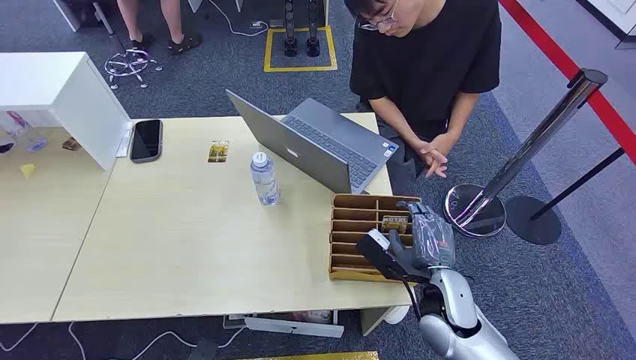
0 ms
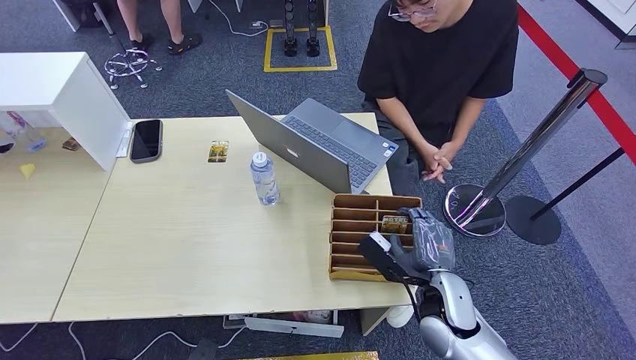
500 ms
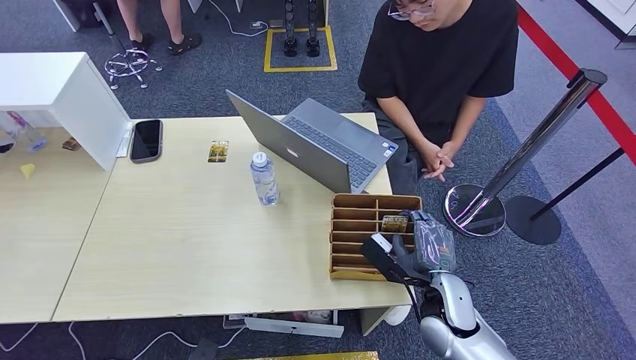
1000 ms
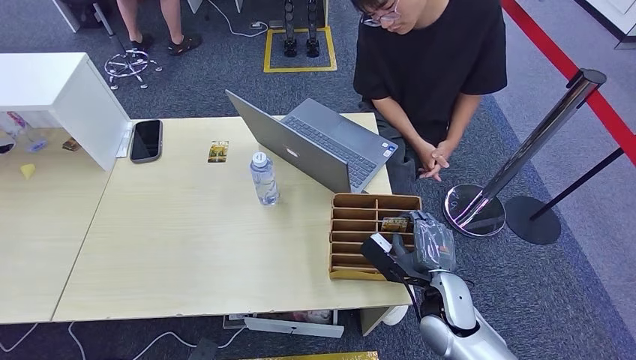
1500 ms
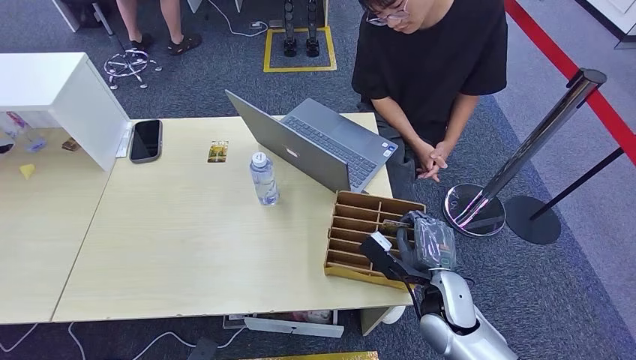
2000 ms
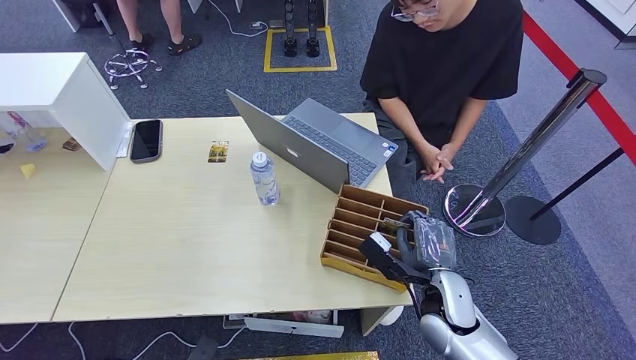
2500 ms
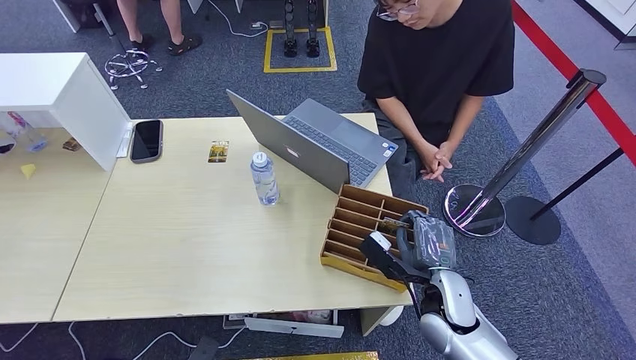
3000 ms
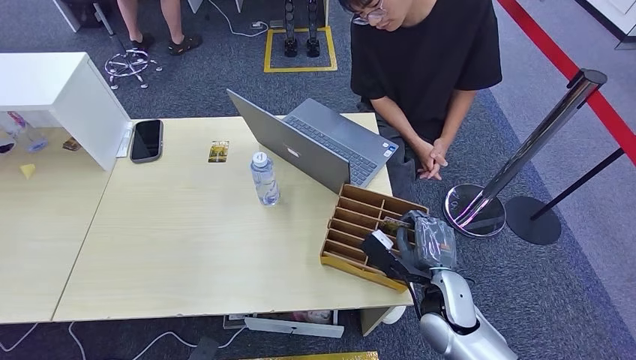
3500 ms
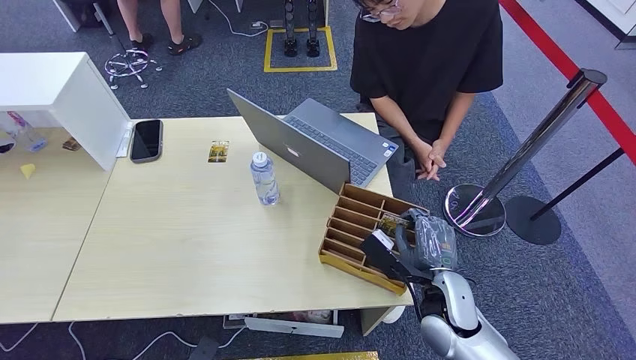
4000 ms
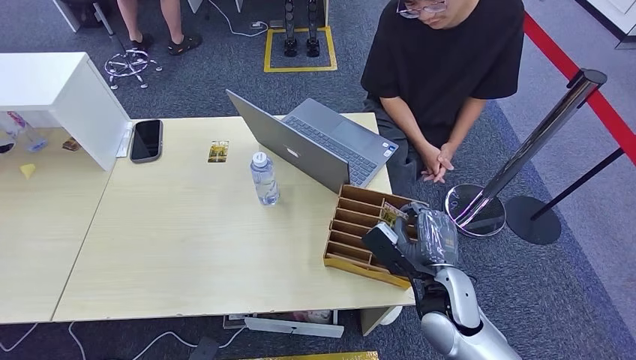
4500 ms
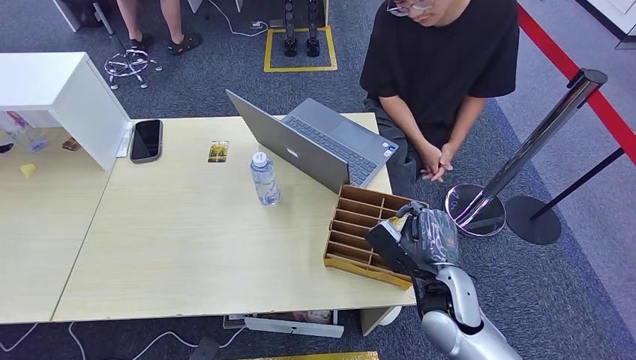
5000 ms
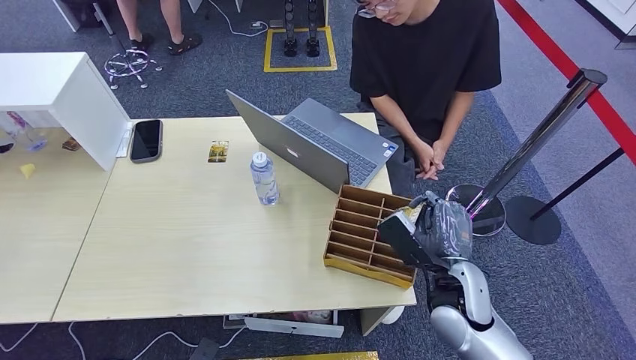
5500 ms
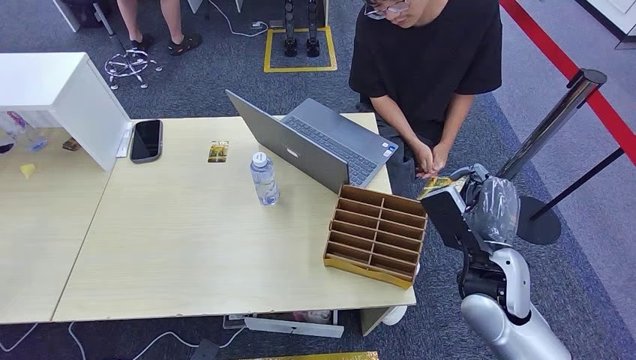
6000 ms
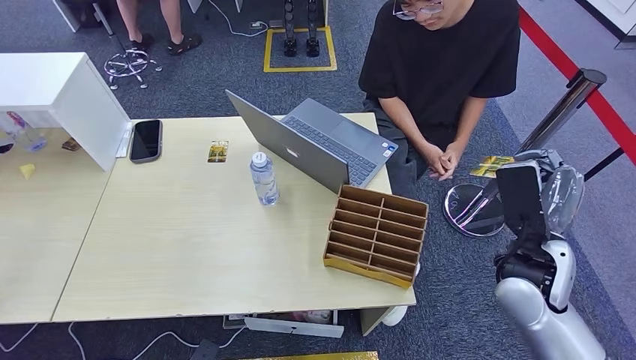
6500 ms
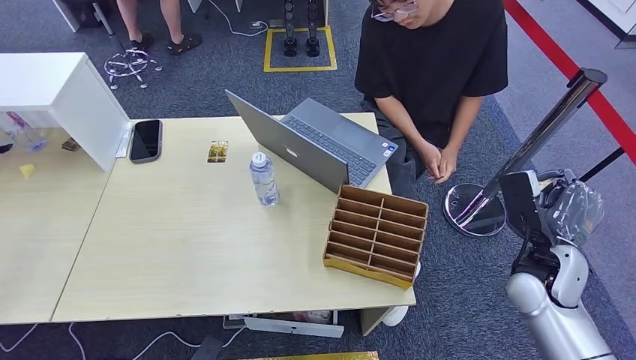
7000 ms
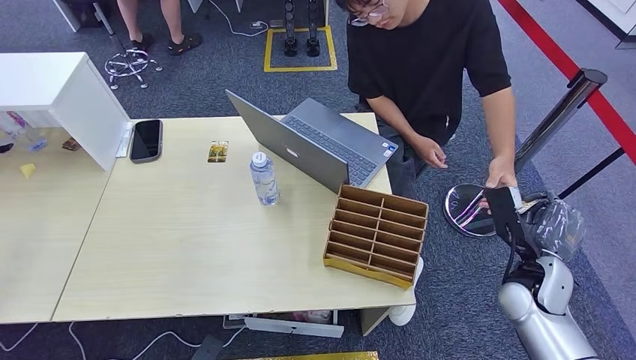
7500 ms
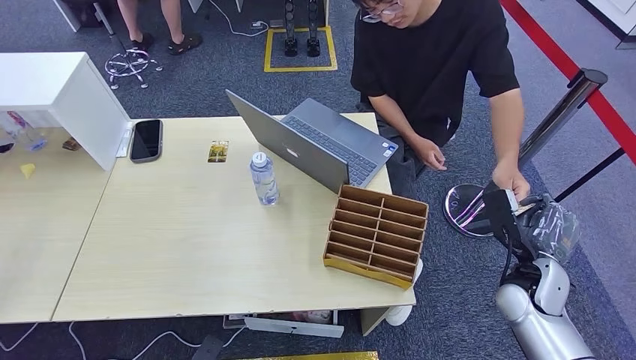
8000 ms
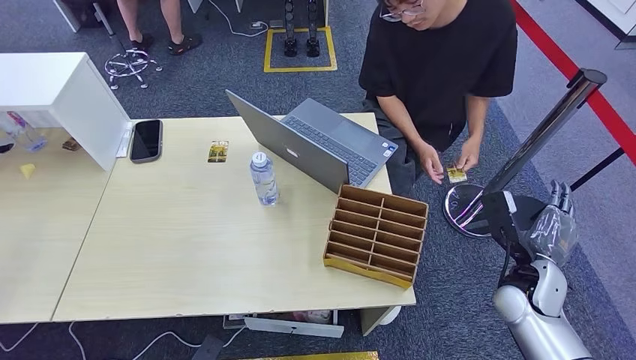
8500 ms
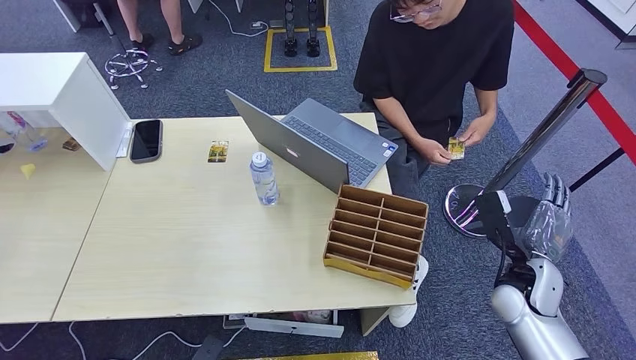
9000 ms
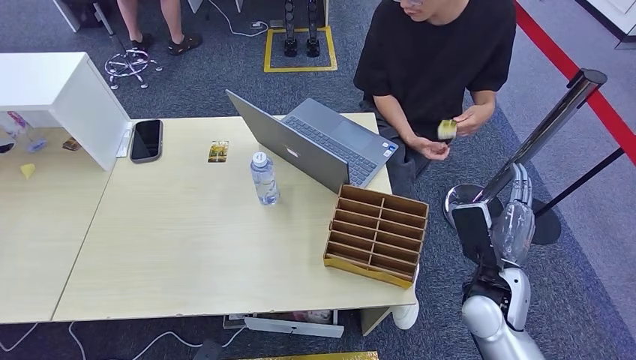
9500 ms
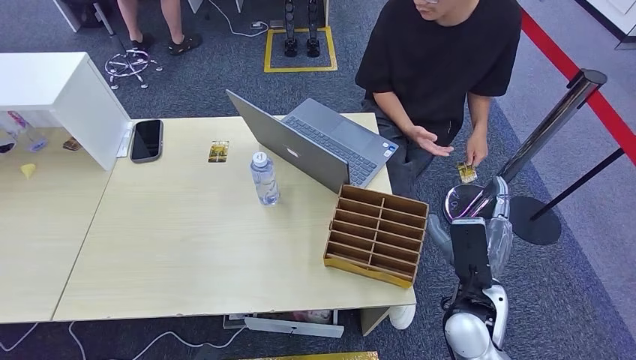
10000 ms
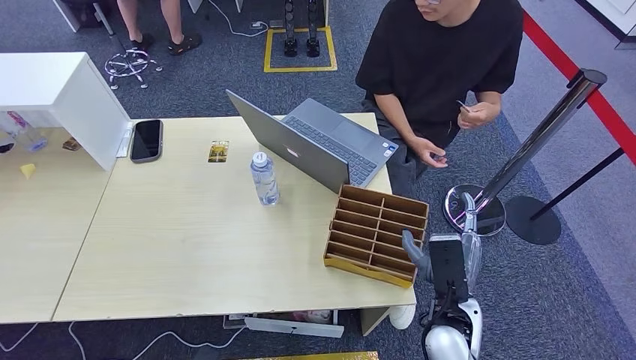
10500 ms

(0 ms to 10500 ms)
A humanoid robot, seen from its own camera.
Step, 0 ms - 4000 ms: Pick up the key card from the card box.
Step, 4500 ms - 10500 ms: Hand the key card to the target.
2000 ms - 4000 ms: Both hands stay about where they are.
4000 ms - 6500 ms: The right hand goes about 15 cm upward and to the right.
6500 ms - 8500 ms: The right hand travels downward and to the right by approximately 10 cm.
8500 ms - 10500 ms: The right hand is displaced to the left by approximately 15 cm.
